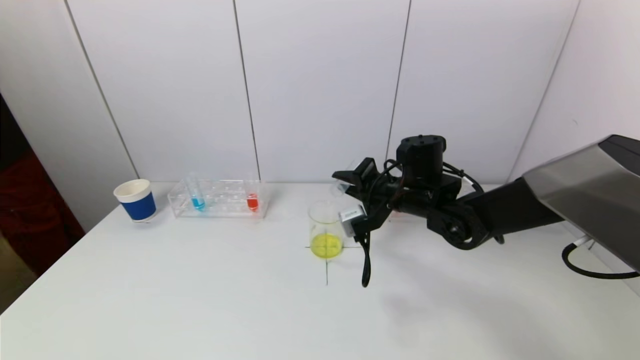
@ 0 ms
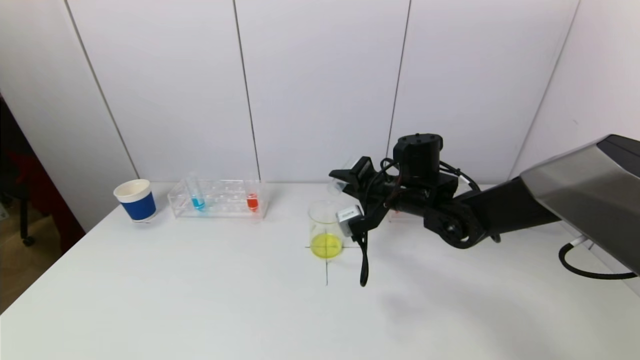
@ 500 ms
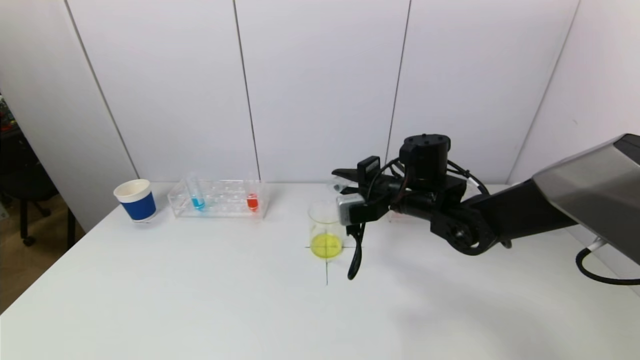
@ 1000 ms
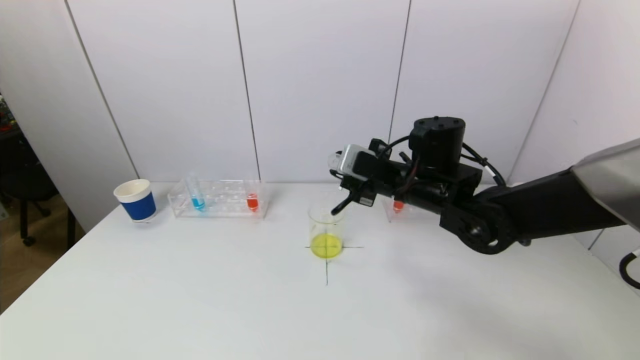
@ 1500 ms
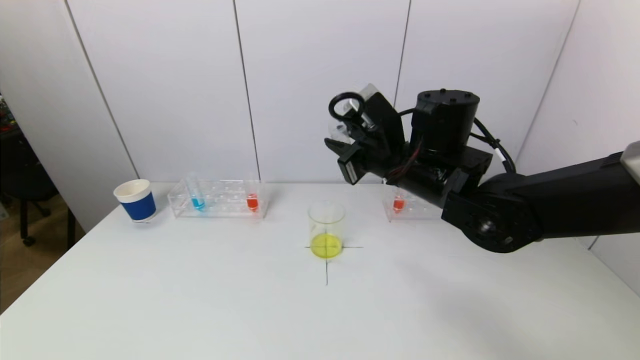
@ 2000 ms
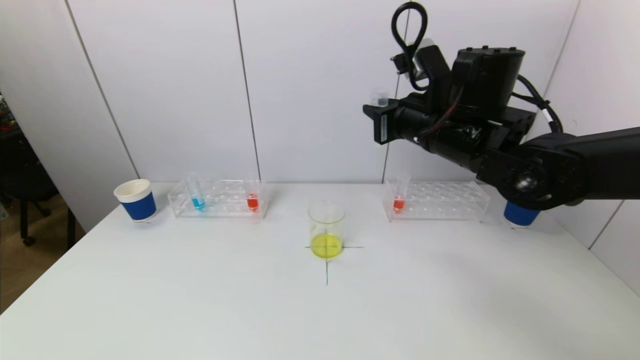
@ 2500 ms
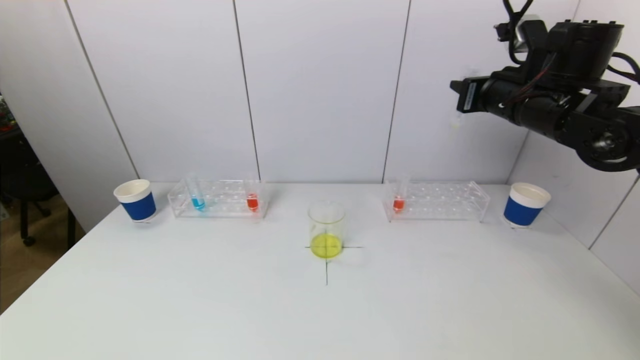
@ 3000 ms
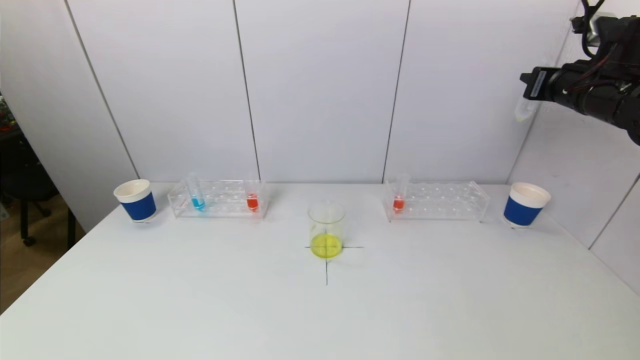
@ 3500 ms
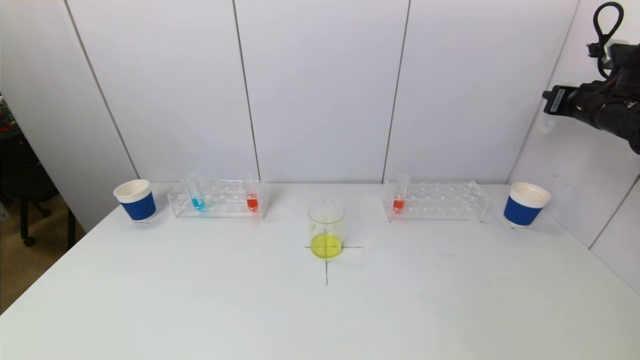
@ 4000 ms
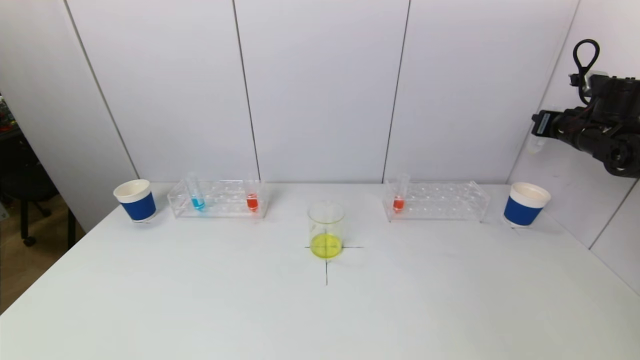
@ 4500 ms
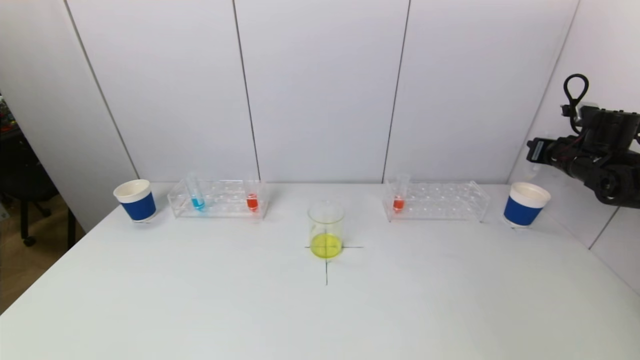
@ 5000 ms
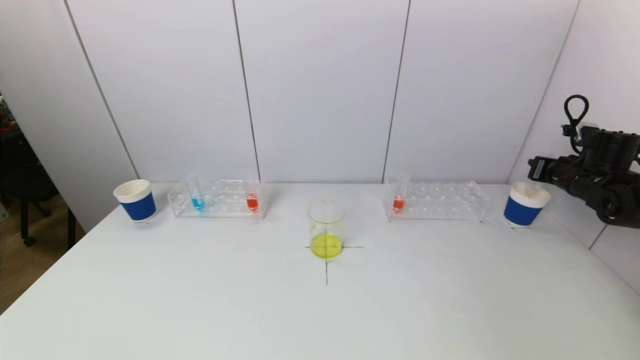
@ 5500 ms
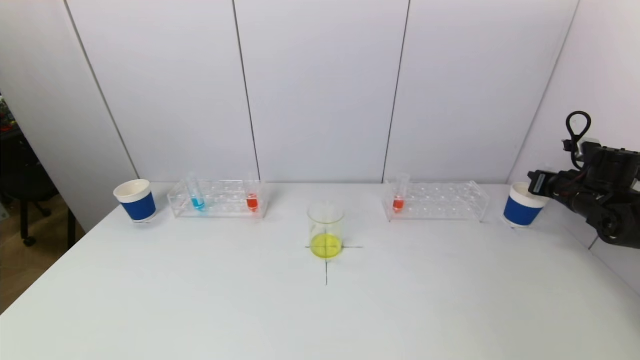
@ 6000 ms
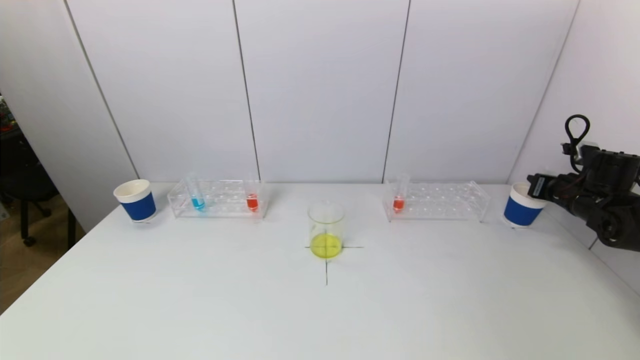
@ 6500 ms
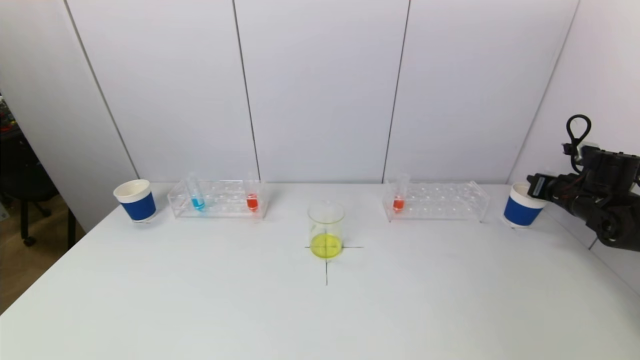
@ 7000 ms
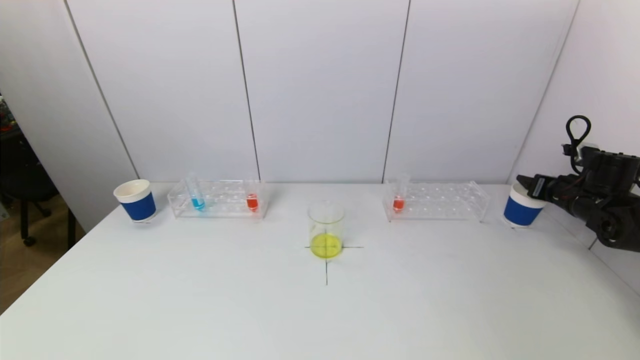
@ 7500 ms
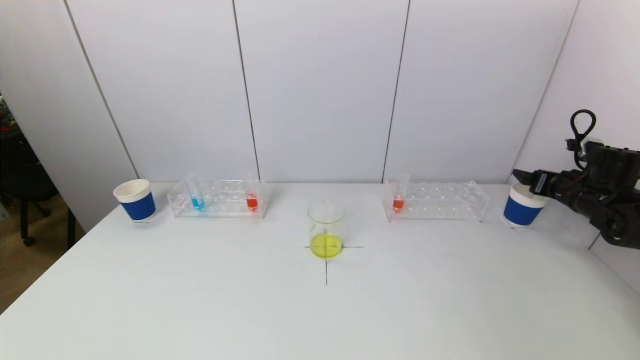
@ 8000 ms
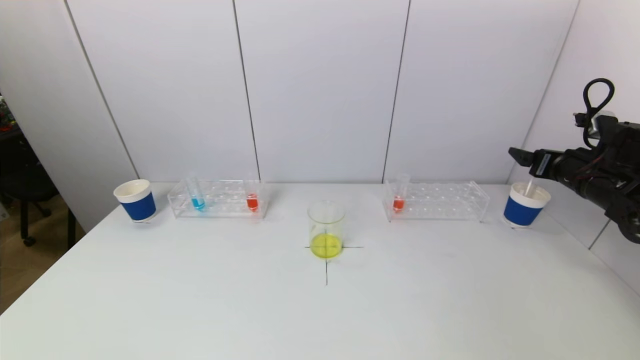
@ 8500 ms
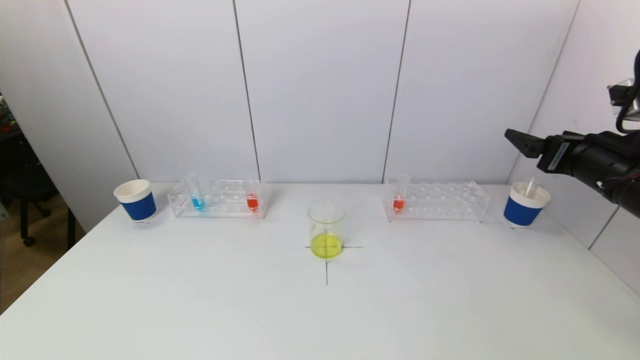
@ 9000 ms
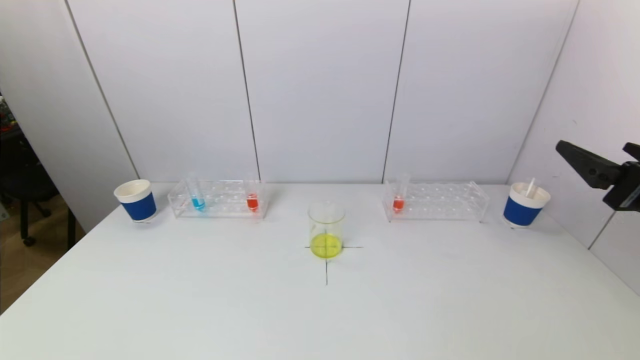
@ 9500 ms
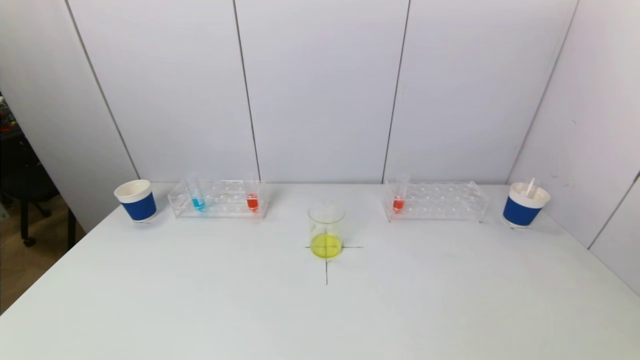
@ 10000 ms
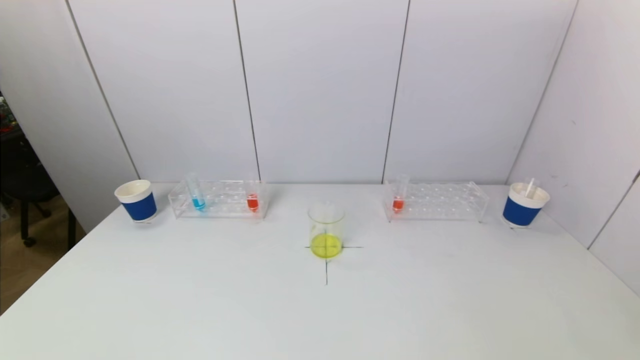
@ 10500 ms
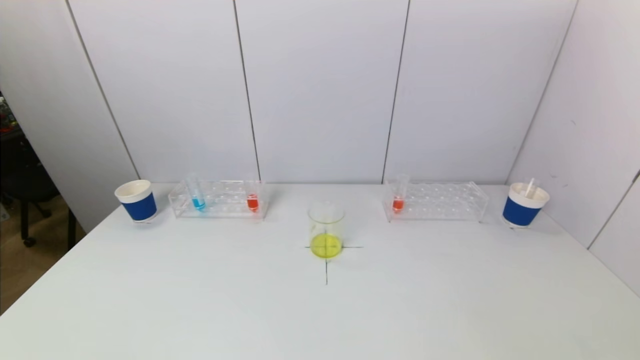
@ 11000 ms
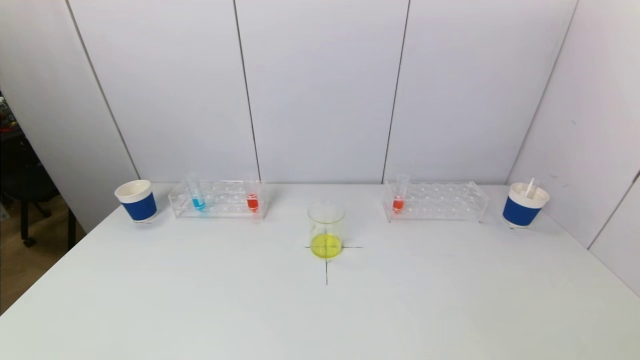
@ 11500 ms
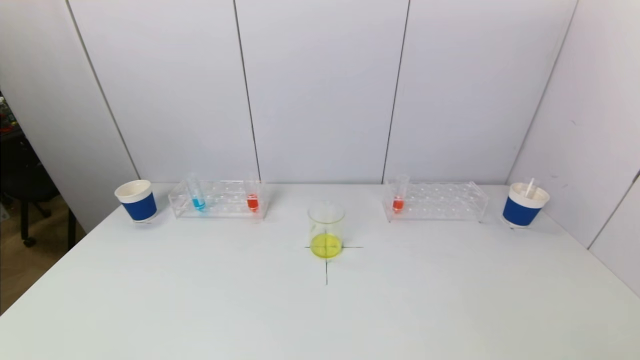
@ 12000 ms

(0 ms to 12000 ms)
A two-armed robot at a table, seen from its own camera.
Task of the whole recording: pick up a test tube with pigment on left test tube rack and a test tube with pigment on right test tube rack by grippers and pour them into the beaker.
Step, 1000 ms - 7500 ms: Place the test tube into the paper cup with the right gripper.
0 ms - 2000 ms: The right gripper goes about 10 cm upward and backward.
2000 ms - 4000 ms: The right gripper goes approximately 35 cm to the right.
4000 ms - 6000 ms: The right gripper shifts some 15 cm downward.
6000 ms - 8000 ms: The right gripper opens its fingers.
8000 ms - 10000 ms: The right gripper travels backward by some 30 cm.

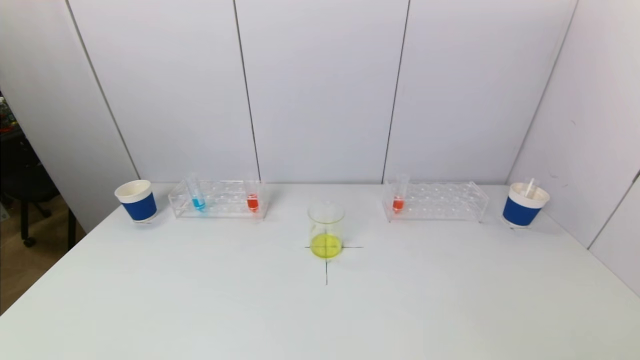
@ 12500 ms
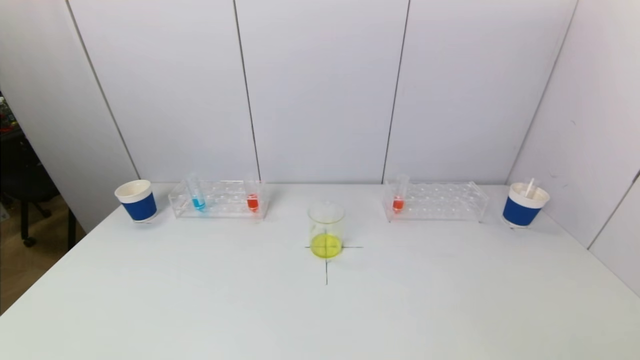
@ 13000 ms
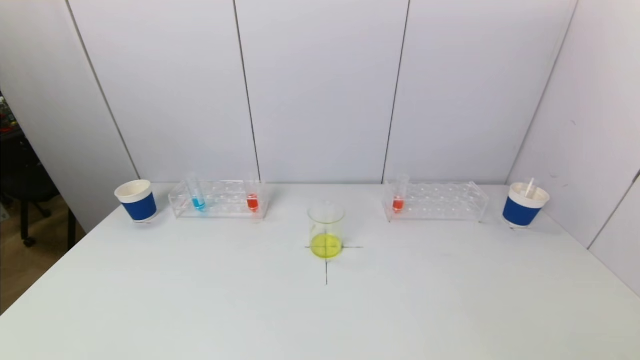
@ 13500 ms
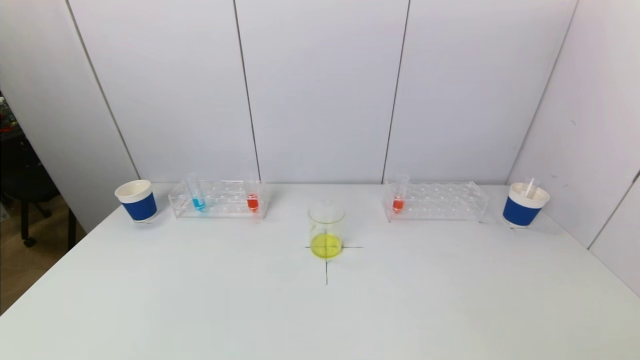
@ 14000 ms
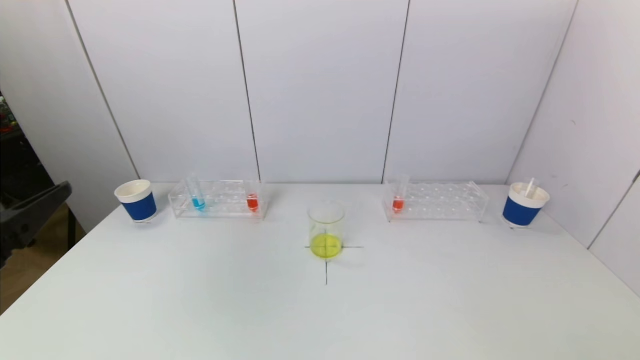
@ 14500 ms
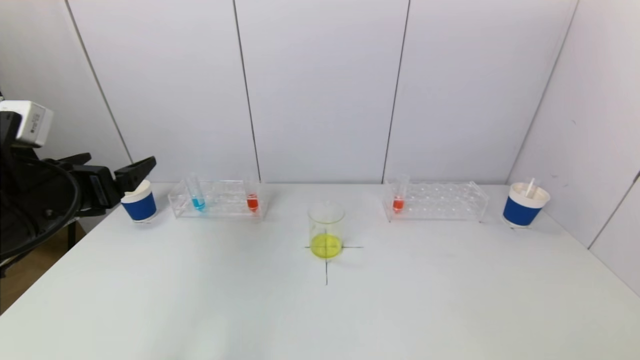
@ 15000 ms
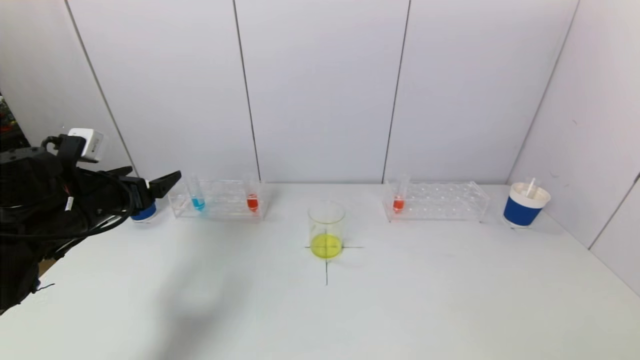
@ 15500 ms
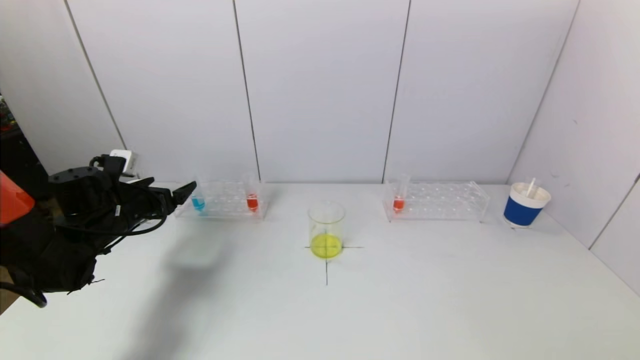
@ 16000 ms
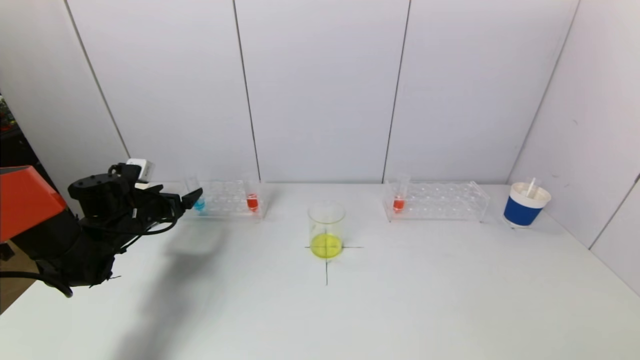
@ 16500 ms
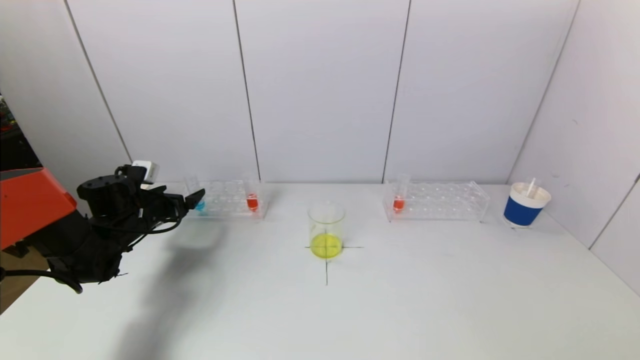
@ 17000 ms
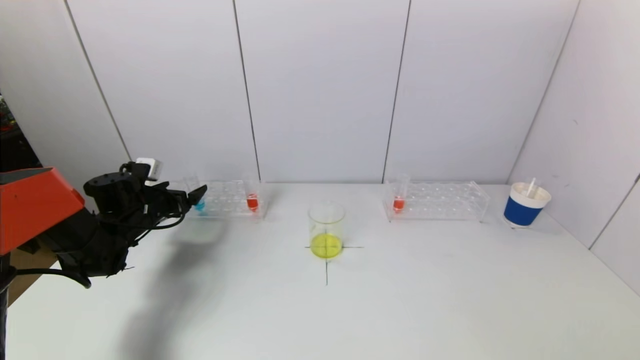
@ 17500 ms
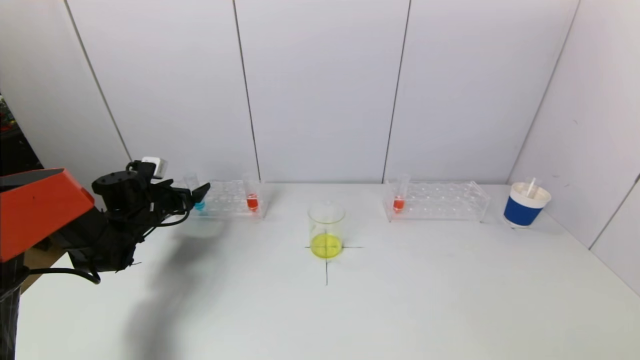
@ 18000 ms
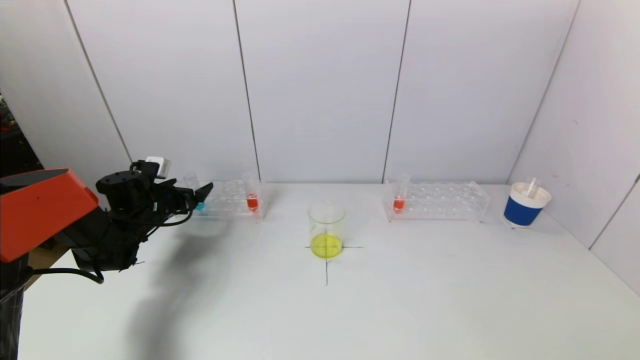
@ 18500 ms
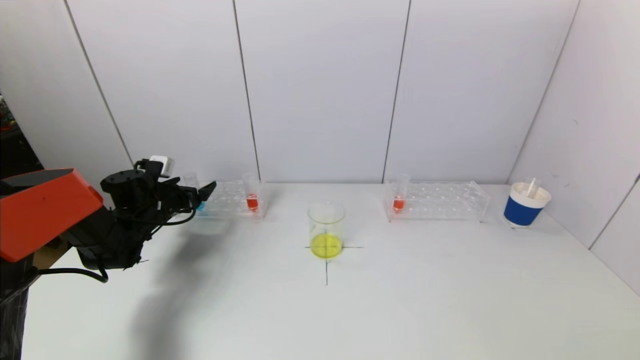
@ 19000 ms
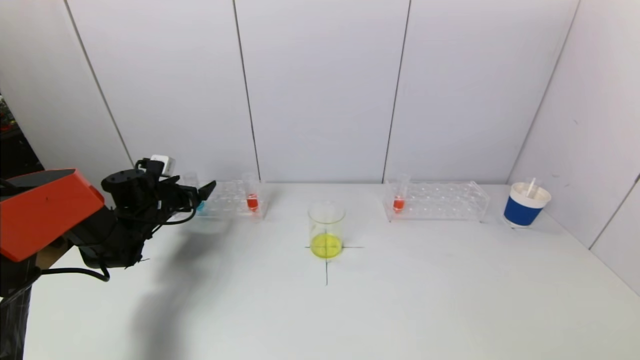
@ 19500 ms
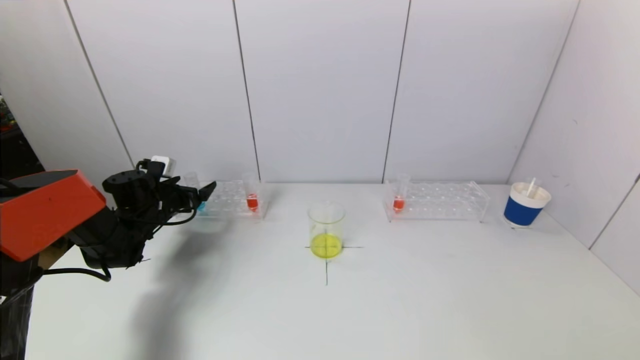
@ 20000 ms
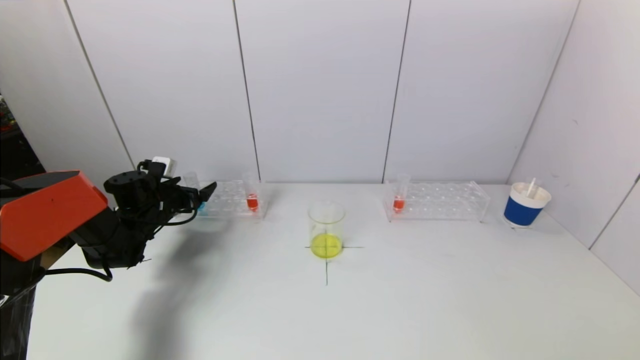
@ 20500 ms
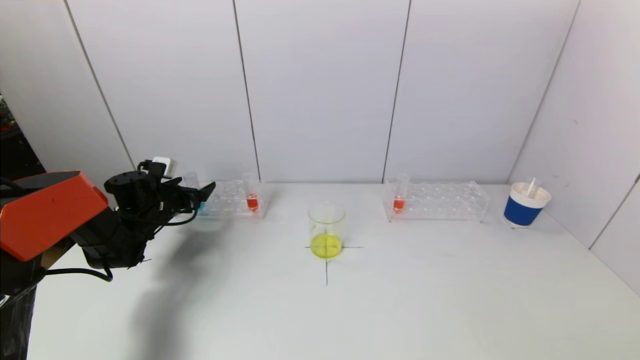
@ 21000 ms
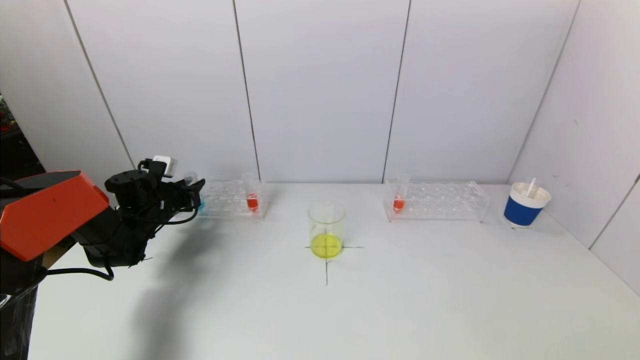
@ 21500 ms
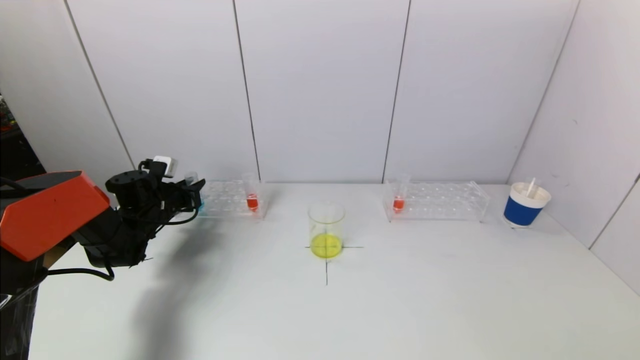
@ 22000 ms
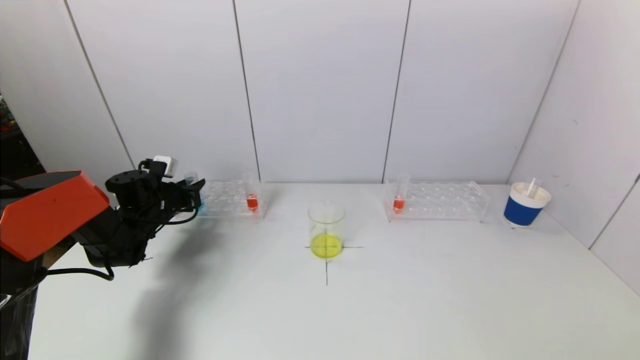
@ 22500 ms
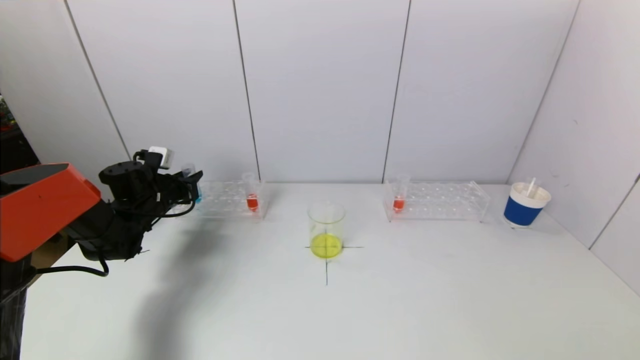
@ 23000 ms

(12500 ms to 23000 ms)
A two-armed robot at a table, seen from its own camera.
Task of the whole recording: pick up a test tube with pigment on left test tube rack and a test tube with pigment on right test tube rack by grippers and pour them into the beaker.
Step, 12500 ms - 22500 ms: Grasp the blue reagent with the left gripper.
14500 ms - 16500 ms: The left gripper heads forward and downward, covering roughly 30 cm.
16500 ms - 19000 ms: The left gripper moves forward, about 5 cm.
19000 ms - 21000 ms: Both grippers stay about where they are.
21000 ms - 23000 ms: The left gripper closes up.
